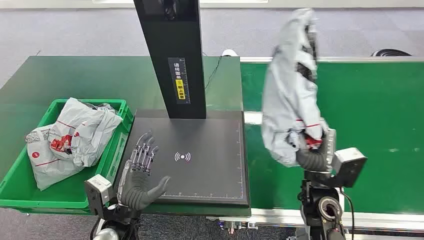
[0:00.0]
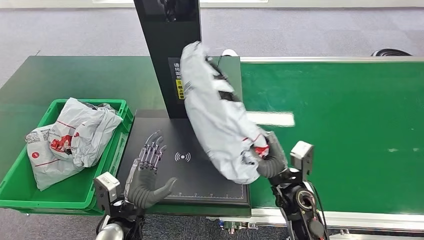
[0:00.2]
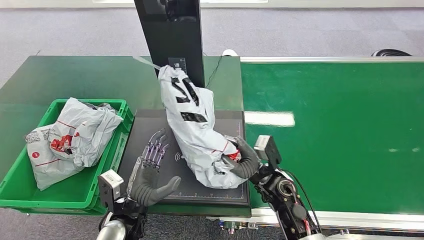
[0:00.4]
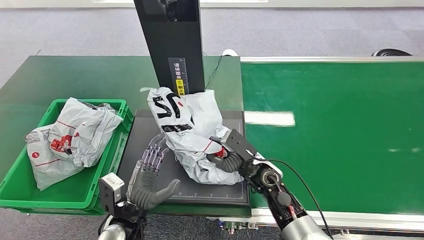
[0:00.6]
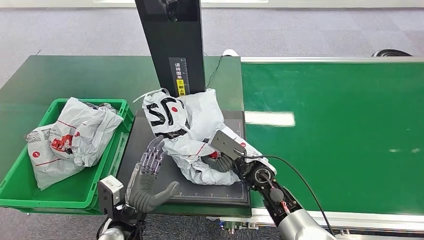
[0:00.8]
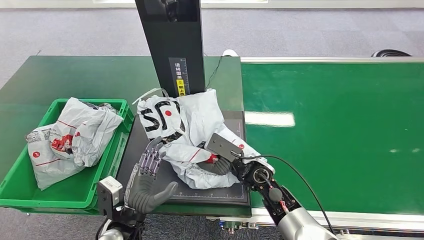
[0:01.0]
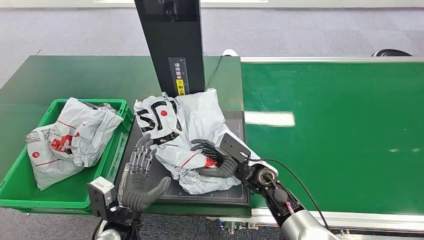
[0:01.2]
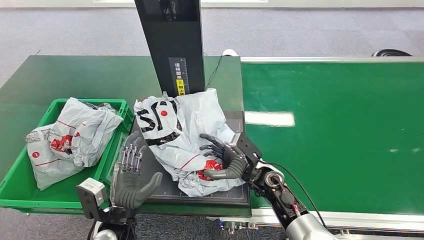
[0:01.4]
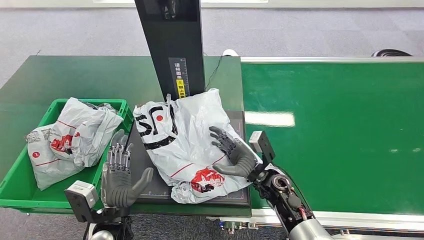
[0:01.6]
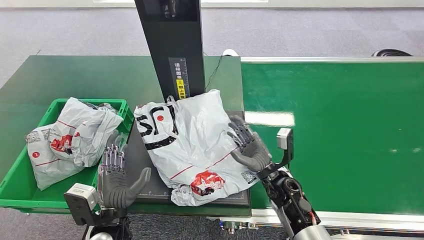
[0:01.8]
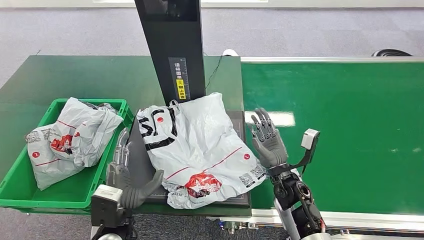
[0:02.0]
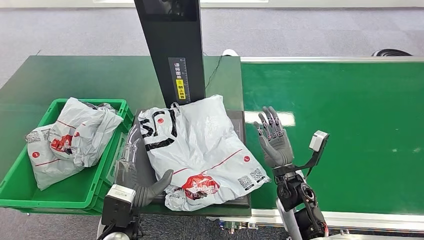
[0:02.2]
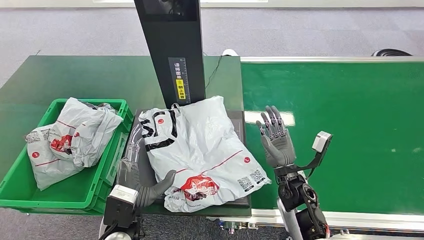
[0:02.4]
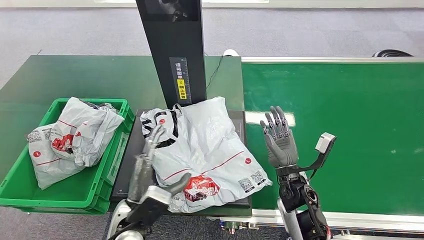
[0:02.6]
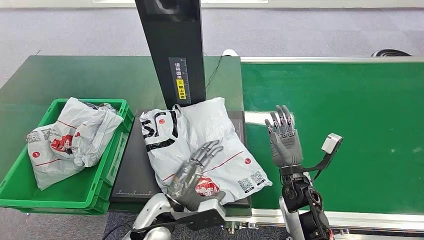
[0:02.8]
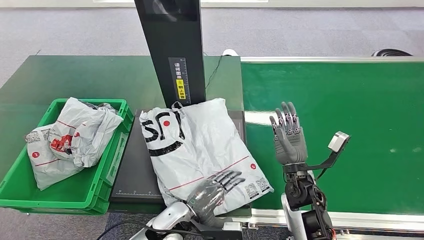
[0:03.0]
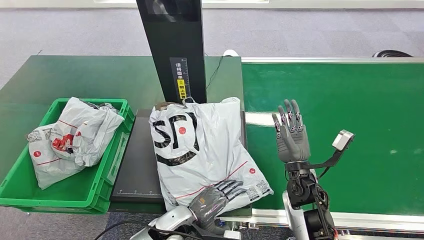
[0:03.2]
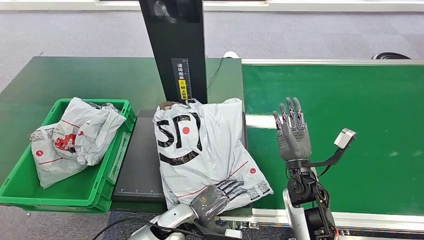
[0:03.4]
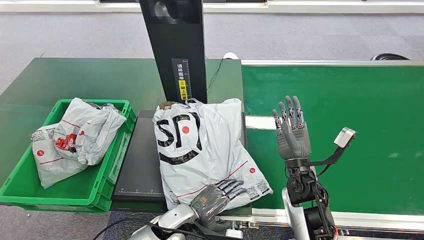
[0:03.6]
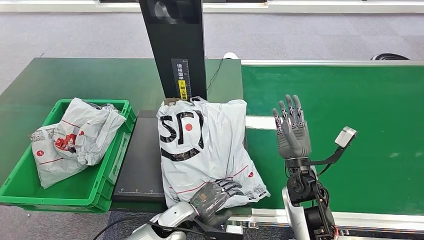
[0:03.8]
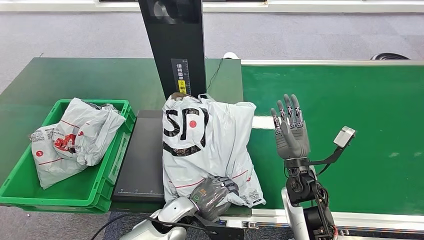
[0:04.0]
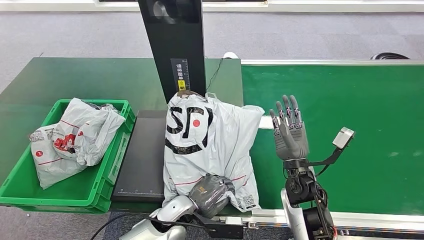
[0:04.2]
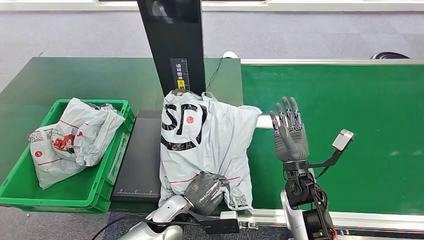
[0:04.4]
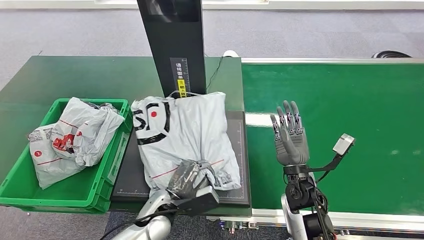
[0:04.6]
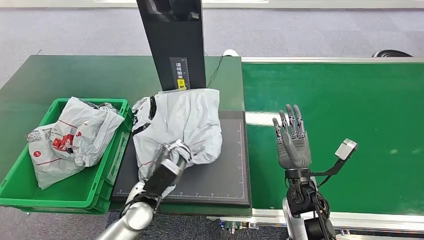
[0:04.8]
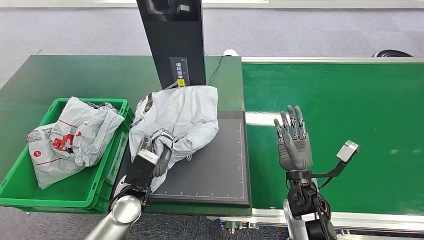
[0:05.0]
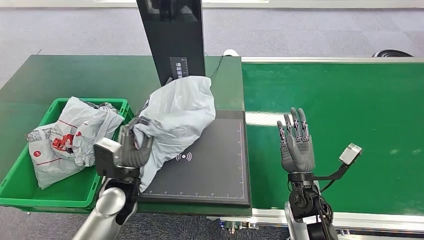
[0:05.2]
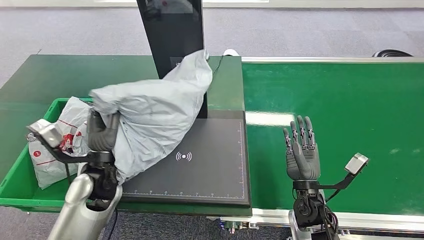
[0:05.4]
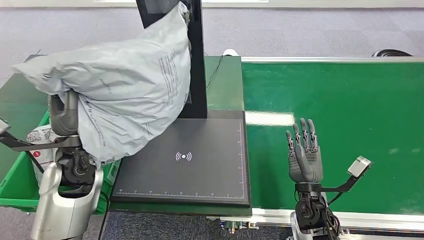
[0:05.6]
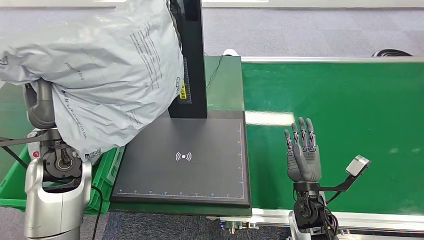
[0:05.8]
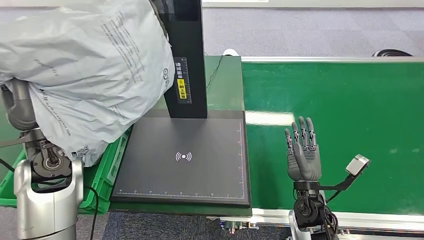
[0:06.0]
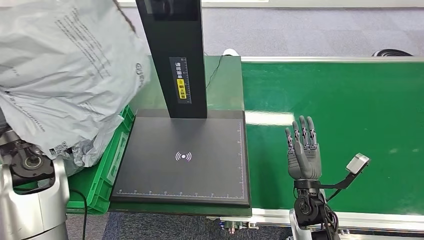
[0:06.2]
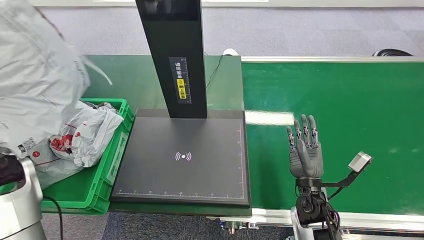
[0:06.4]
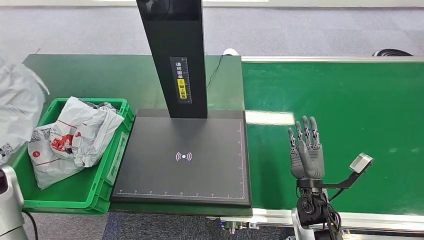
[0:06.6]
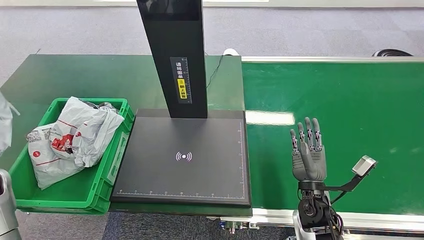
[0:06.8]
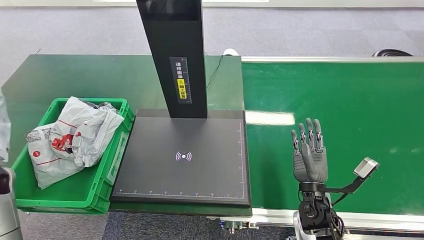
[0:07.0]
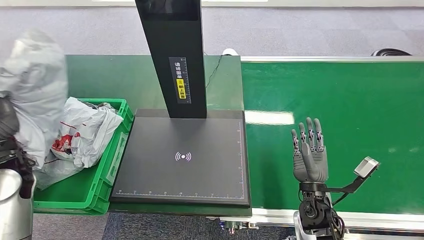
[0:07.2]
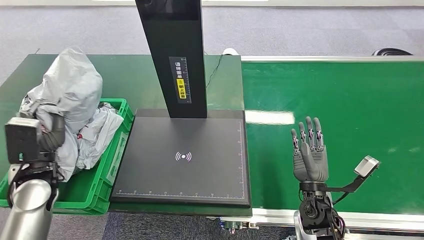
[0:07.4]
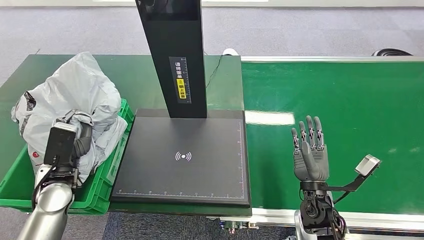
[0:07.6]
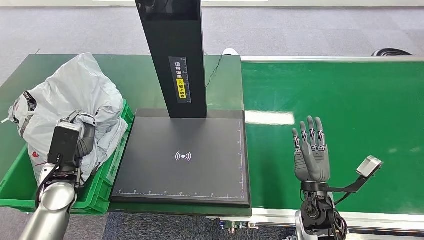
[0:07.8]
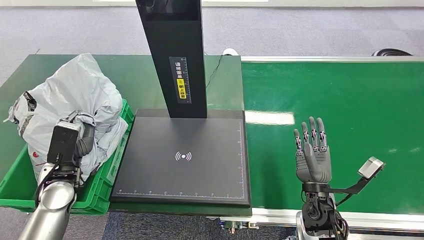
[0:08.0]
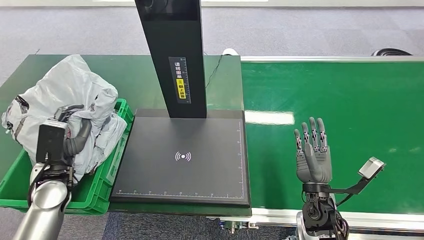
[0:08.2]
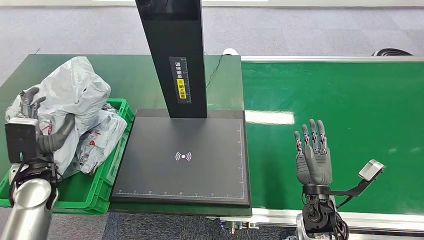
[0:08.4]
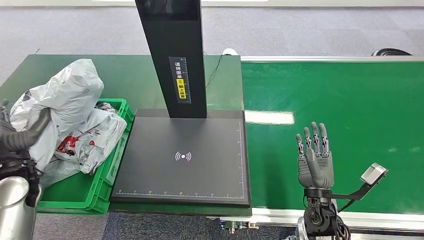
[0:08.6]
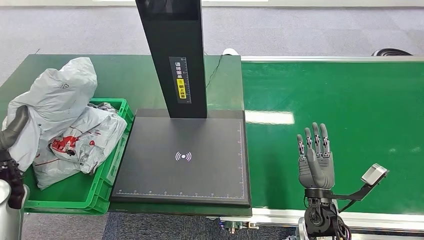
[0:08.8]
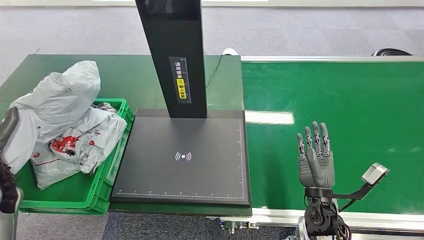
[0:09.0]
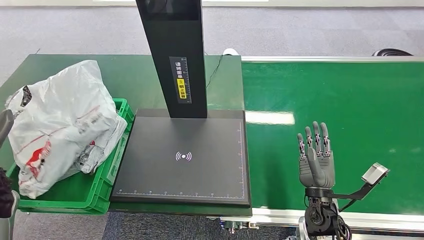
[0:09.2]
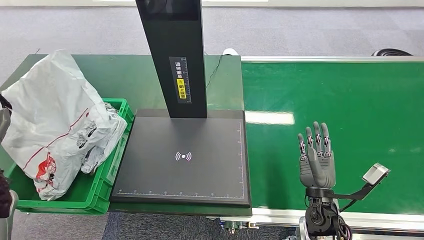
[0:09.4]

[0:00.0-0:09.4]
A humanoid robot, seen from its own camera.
Task of the whole recording: Weigh the package on the weighing device and place it in the left basket.
Step, 0:00.0 to 0:00.2: Pick up the package from the conveyor belt.
Step, 0:09.2 to 0:09.4: Place the package into the parcel locker.
0:03.2 to 0:04.8: The left hand moves to the left and upward, approximately 10 cm.
0:07.8 to 0:09.4: The left hand is displaced to the left and upward by roughly 15 cm.
